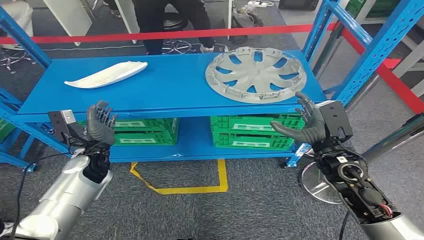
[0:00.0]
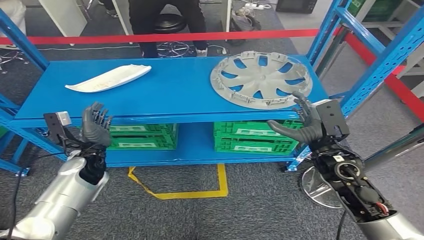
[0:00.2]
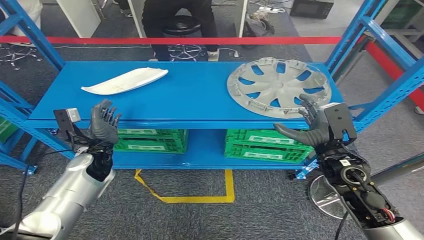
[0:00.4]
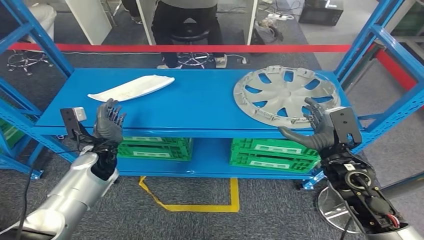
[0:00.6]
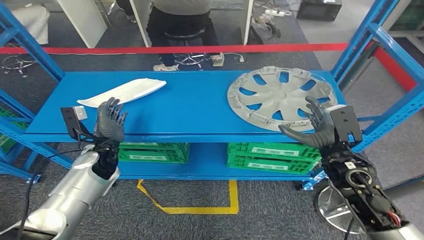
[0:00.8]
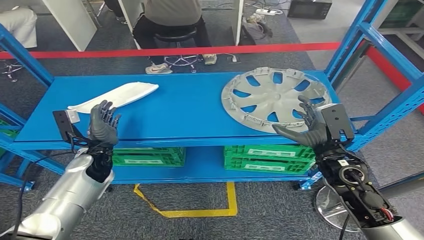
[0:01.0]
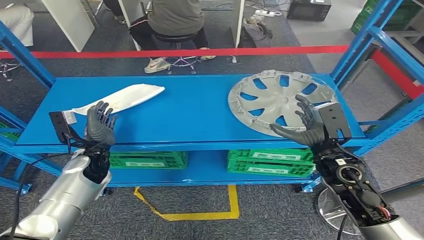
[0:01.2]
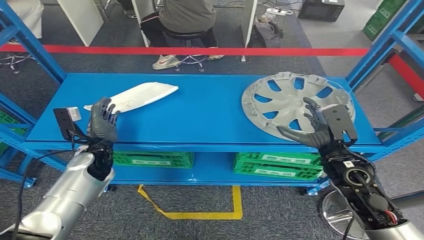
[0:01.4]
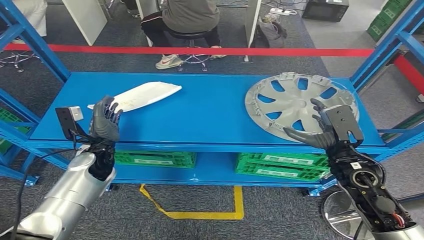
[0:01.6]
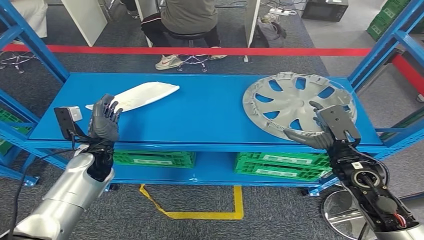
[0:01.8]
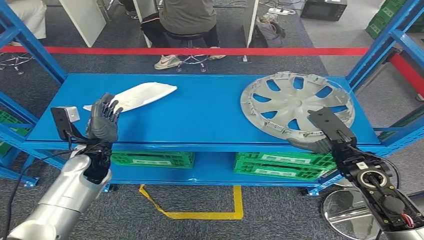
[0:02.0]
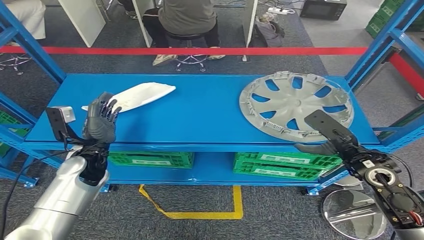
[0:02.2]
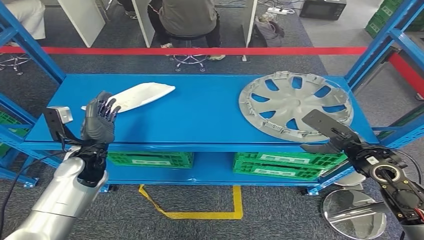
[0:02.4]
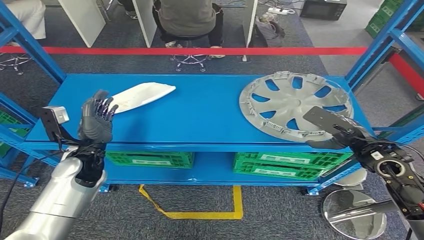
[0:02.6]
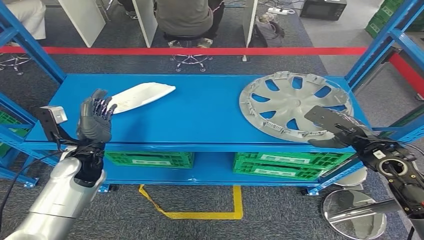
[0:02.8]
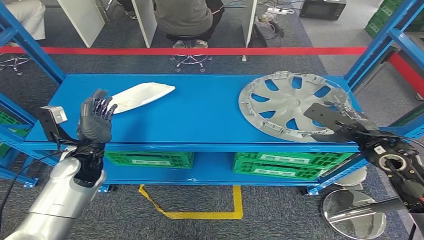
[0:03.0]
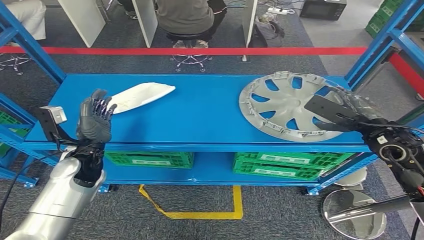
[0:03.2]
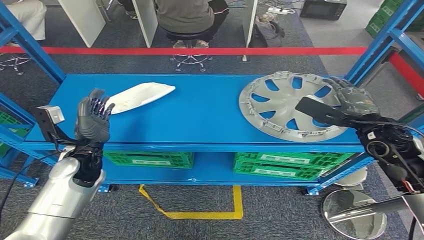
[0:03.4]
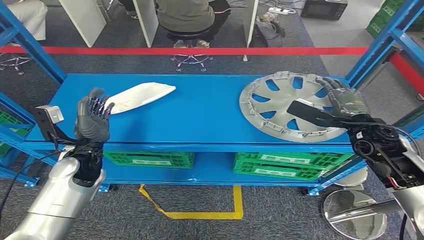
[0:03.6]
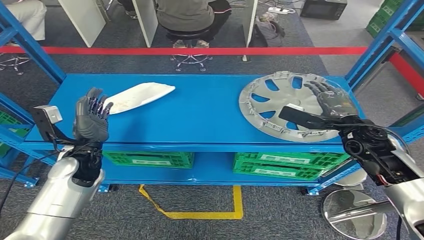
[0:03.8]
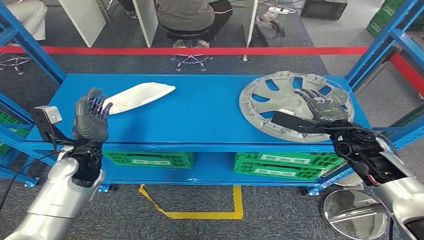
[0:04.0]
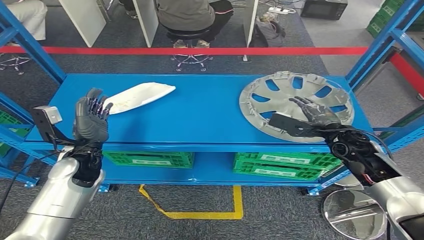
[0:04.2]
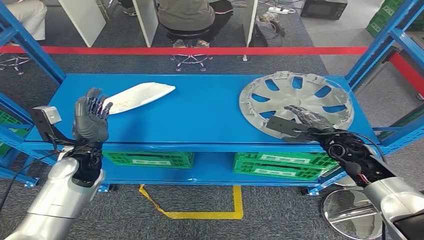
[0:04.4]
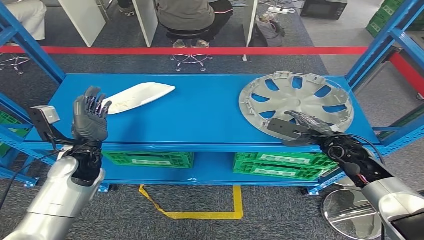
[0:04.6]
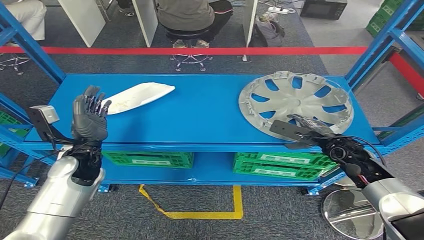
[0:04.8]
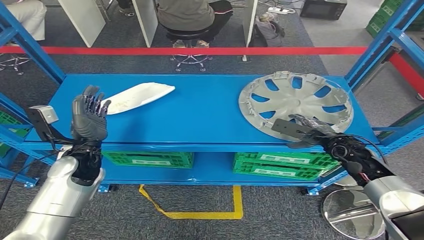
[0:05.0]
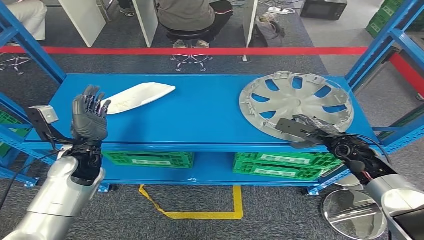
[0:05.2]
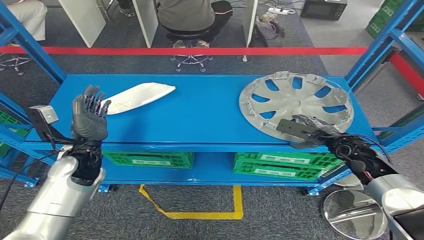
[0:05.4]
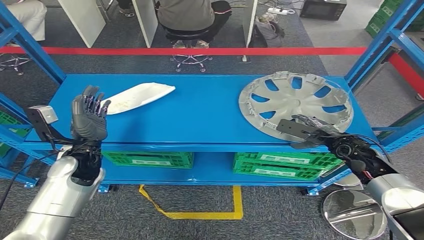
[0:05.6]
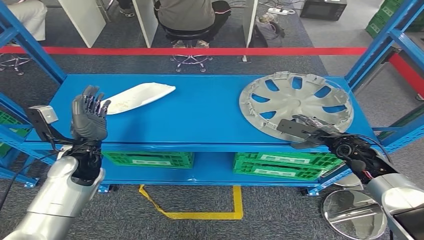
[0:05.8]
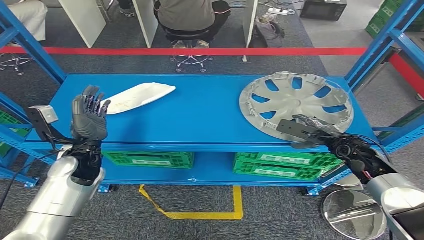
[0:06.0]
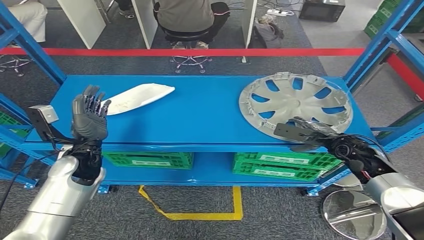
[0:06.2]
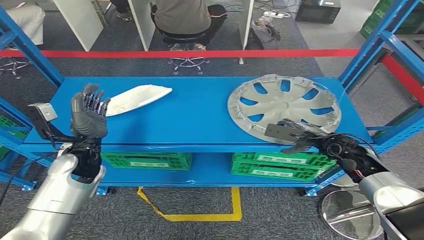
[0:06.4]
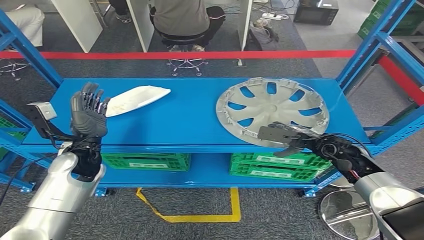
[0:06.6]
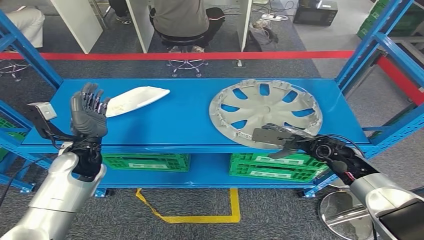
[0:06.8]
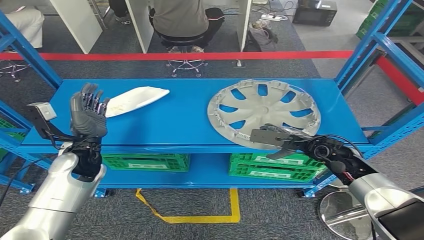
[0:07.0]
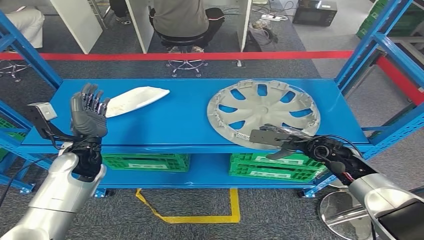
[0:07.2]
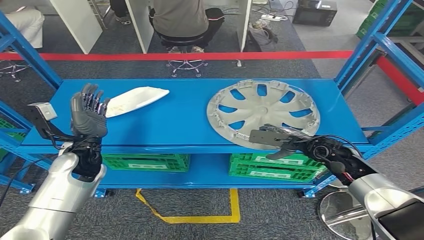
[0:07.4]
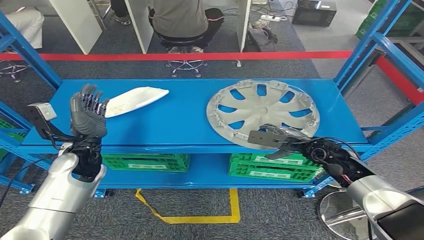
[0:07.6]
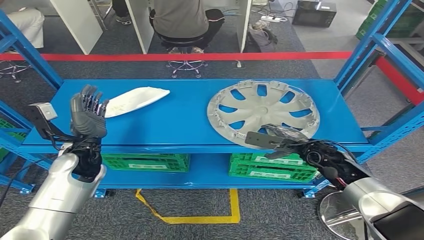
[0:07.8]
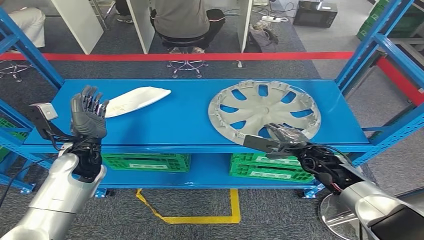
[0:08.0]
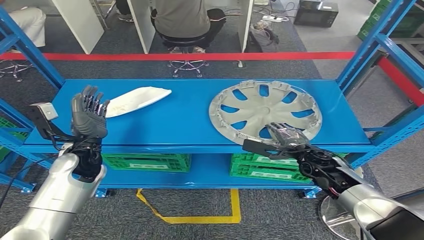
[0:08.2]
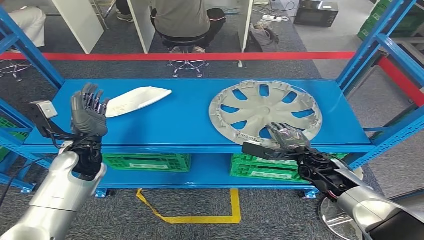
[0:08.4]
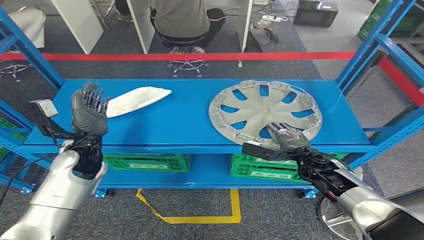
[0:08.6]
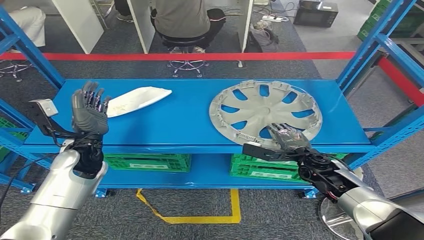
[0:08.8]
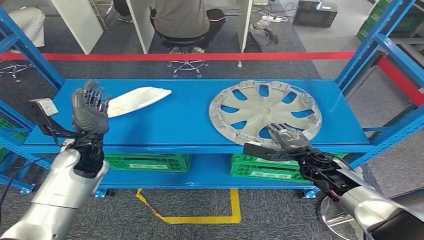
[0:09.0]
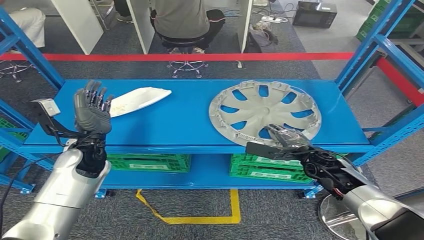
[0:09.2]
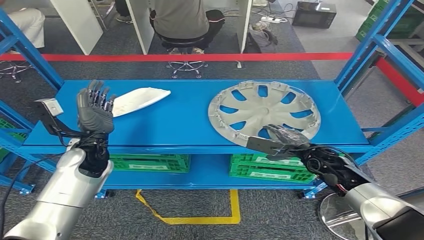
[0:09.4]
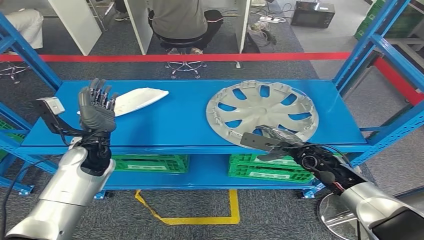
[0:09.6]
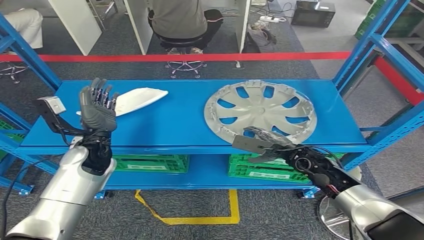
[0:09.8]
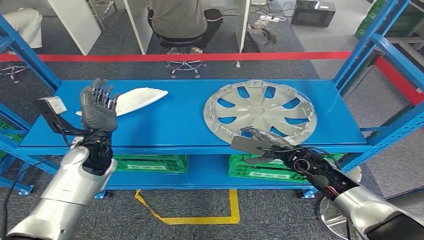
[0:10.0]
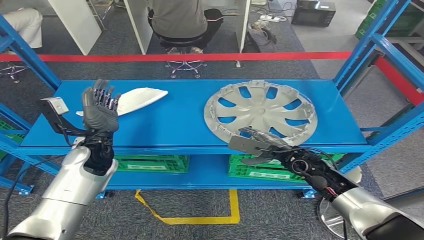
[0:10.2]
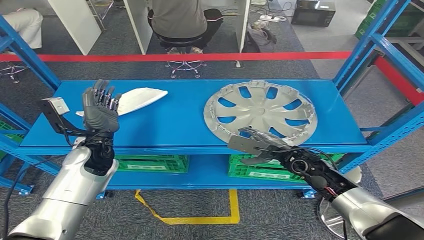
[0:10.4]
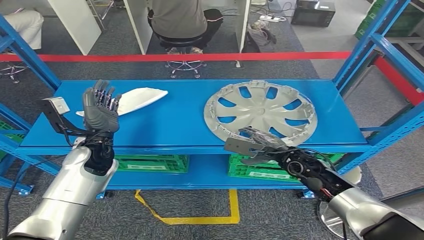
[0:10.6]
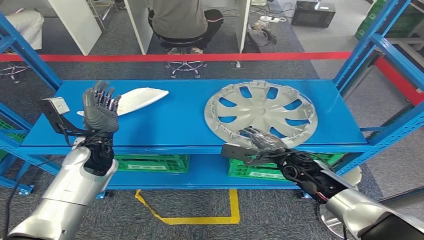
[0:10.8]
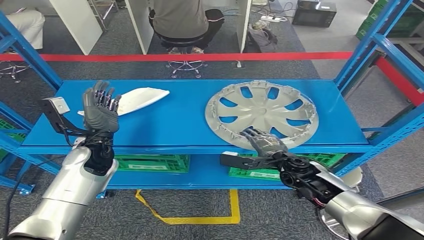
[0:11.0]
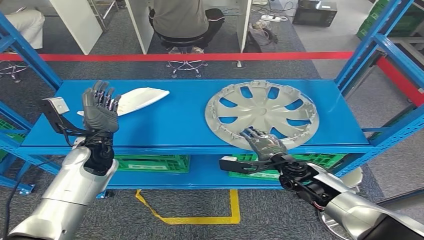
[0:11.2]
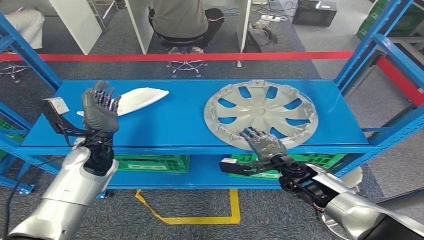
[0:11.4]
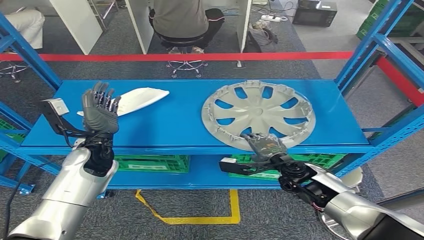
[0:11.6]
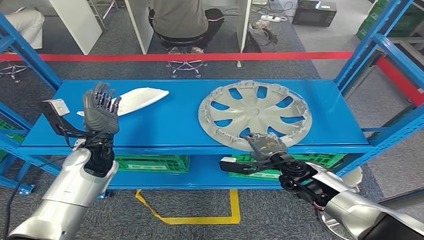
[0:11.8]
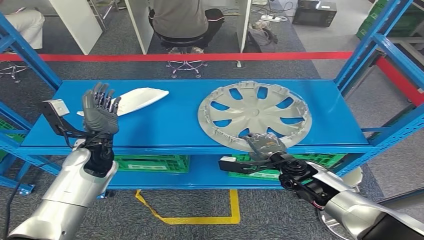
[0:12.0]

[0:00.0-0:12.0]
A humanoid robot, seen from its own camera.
0:03.0 to 0:04.4: The right hand travels downward by approximately 5 cm.
0:04.4 to 0:06.0: There are only small adjustments of the hands.

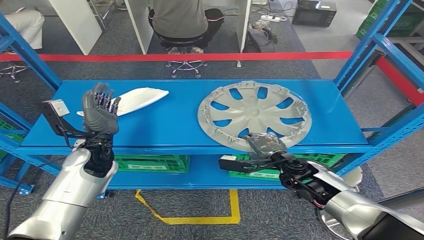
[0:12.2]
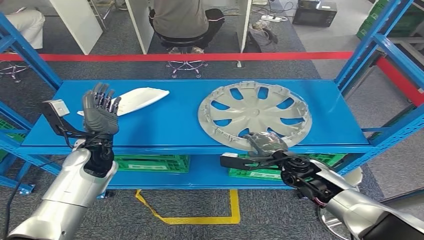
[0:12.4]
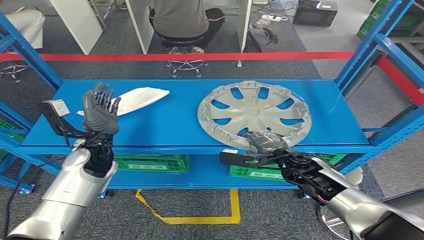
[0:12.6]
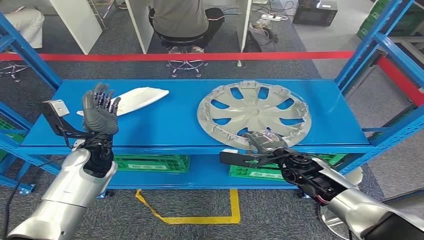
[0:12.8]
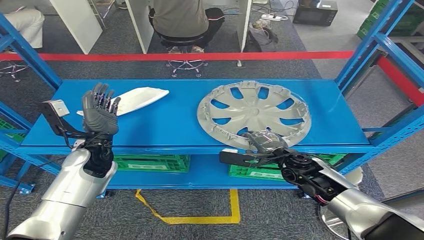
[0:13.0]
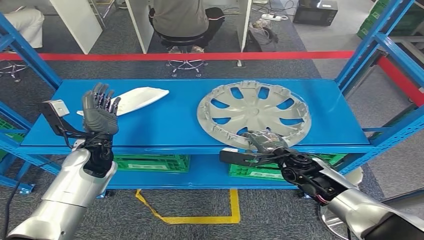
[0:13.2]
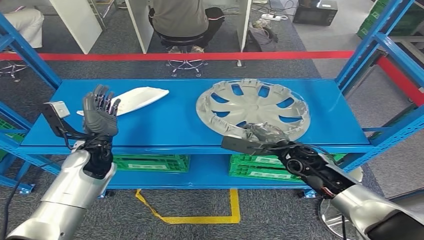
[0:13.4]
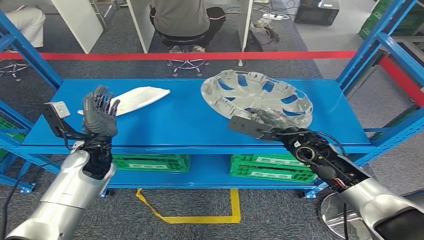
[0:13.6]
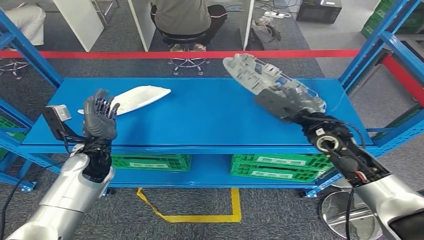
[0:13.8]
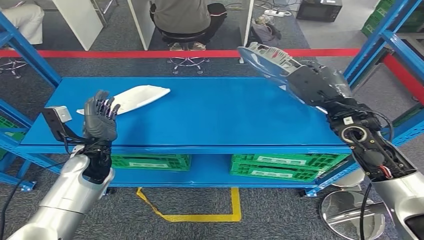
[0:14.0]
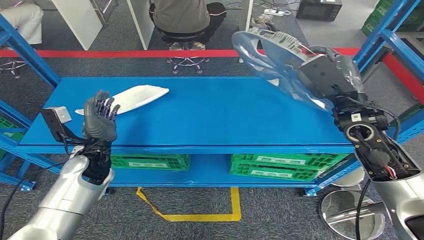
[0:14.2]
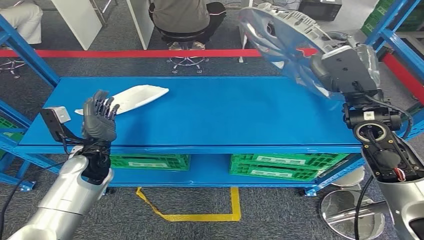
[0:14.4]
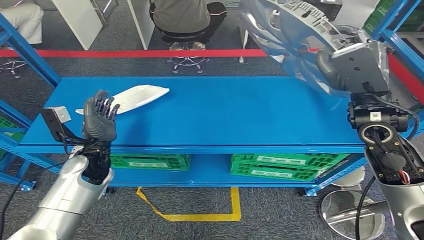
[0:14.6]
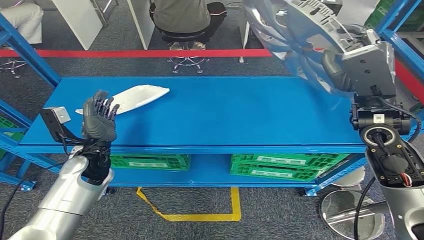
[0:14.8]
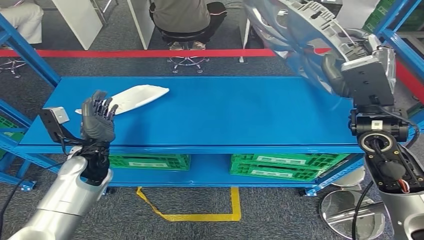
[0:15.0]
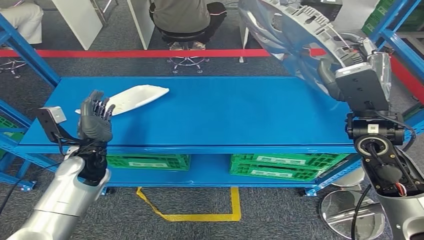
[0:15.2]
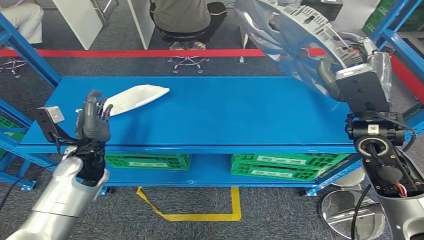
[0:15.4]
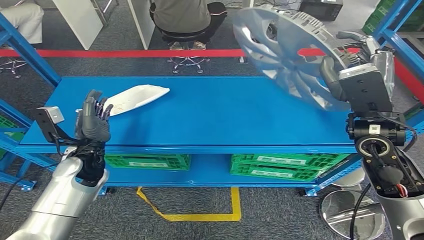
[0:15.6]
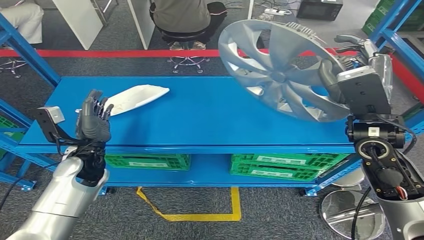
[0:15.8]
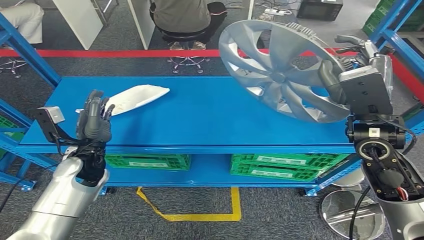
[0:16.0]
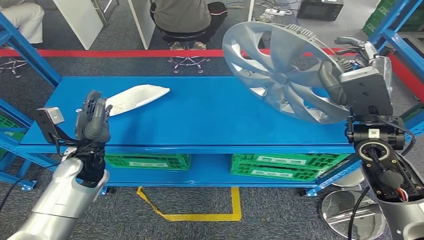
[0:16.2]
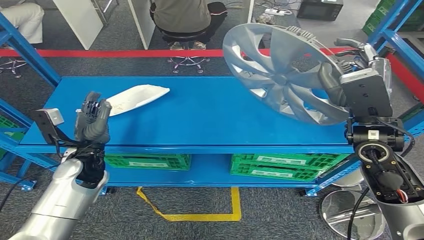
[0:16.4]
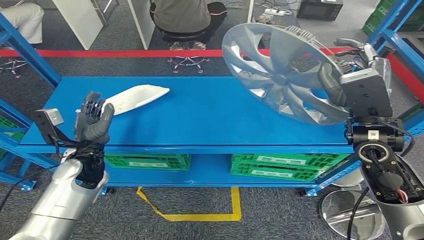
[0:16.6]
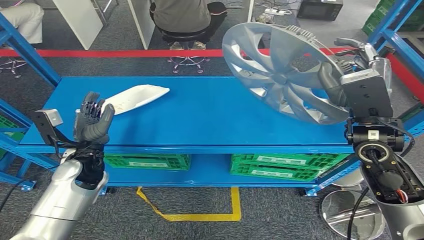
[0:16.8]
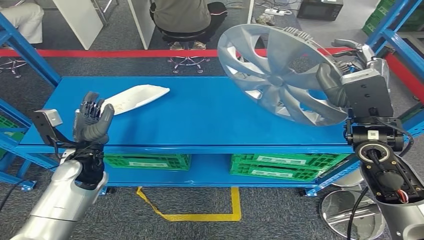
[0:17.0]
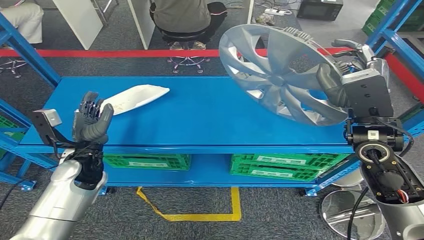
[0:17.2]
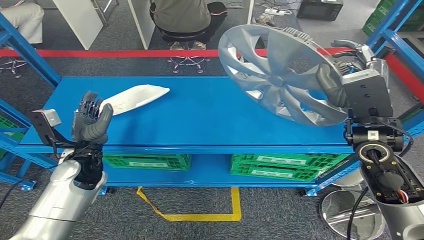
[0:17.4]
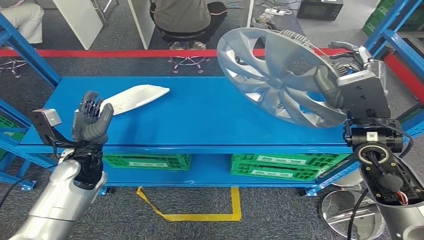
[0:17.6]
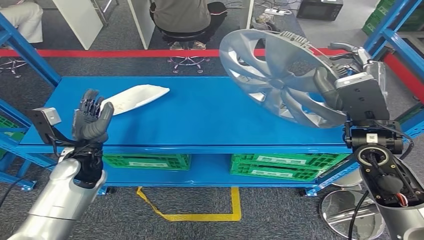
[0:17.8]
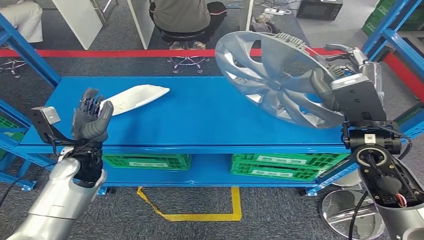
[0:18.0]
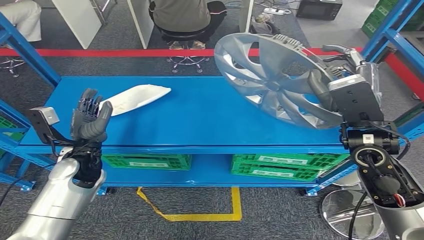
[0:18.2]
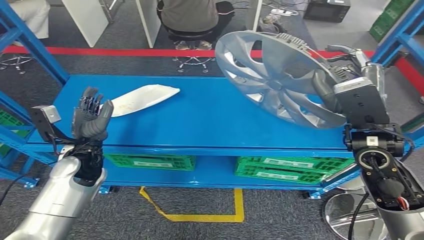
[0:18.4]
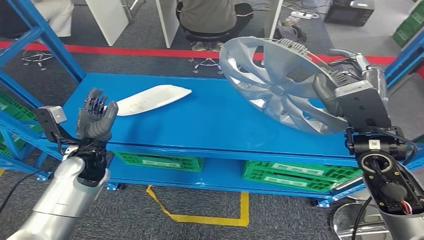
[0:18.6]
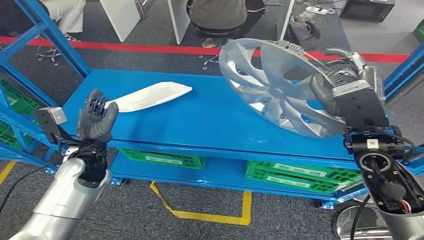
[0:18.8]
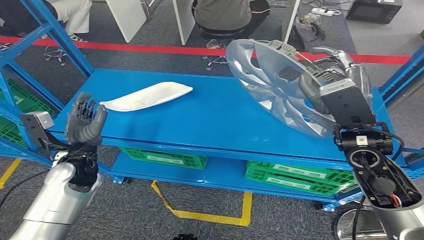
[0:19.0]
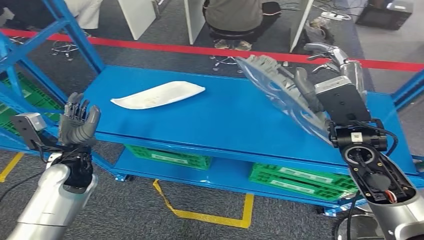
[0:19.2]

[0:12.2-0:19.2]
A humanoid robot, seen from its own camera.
Step, 0:12.2 to 0:17.4: Pick up the small component from the shelf.
0:15.0 to 0:16.4: There are only small adjustments of the hands.
0:16.4 to 0:17.8: Both hands stay put.
